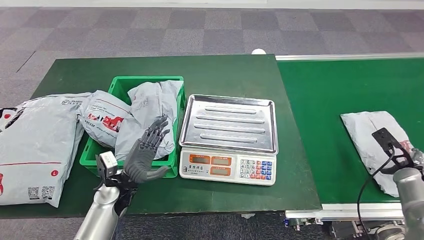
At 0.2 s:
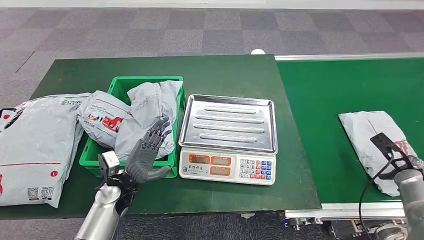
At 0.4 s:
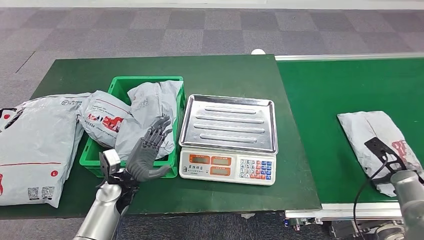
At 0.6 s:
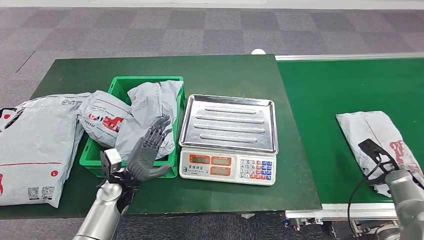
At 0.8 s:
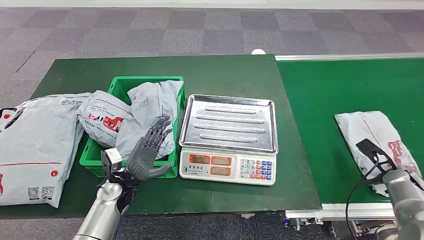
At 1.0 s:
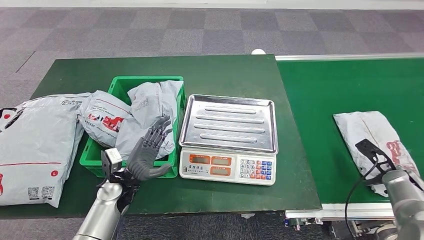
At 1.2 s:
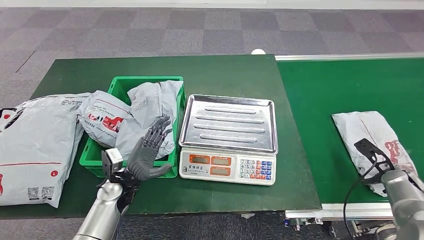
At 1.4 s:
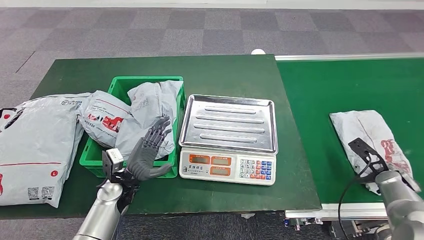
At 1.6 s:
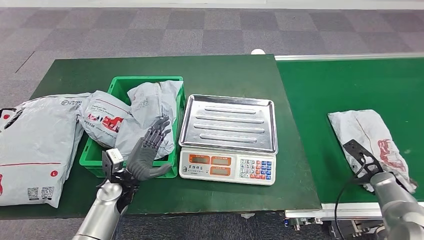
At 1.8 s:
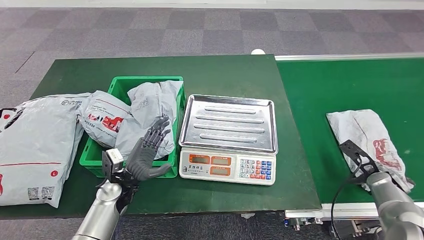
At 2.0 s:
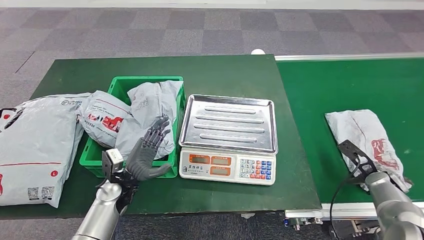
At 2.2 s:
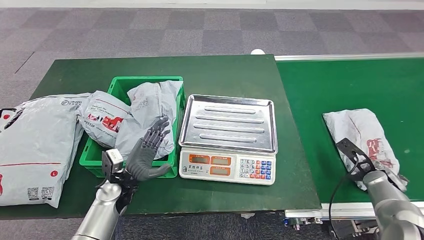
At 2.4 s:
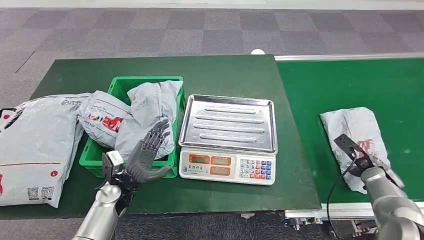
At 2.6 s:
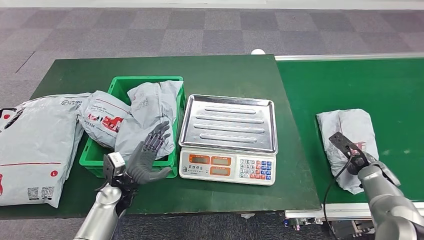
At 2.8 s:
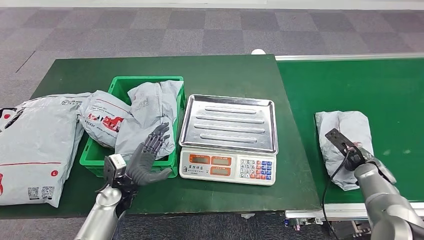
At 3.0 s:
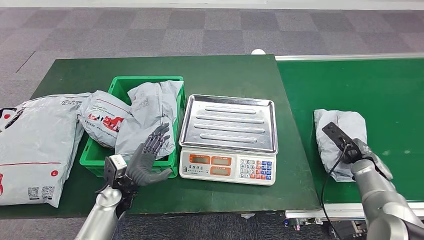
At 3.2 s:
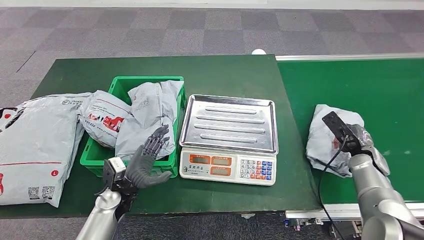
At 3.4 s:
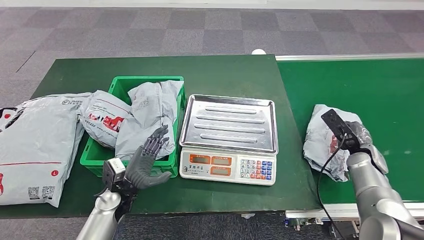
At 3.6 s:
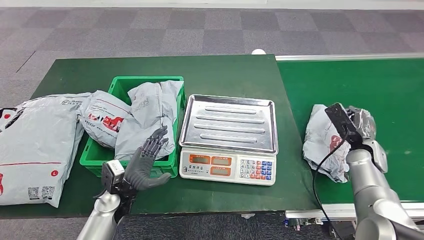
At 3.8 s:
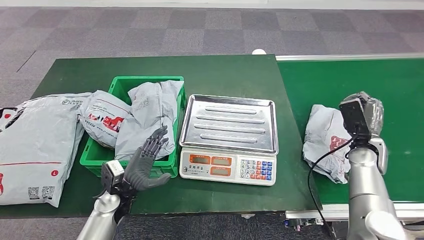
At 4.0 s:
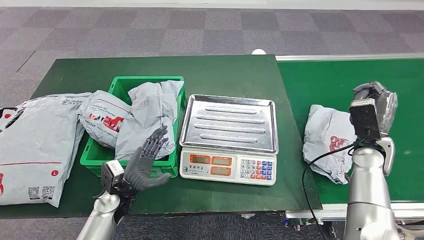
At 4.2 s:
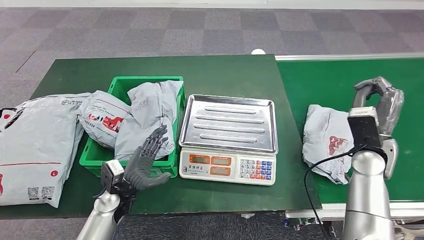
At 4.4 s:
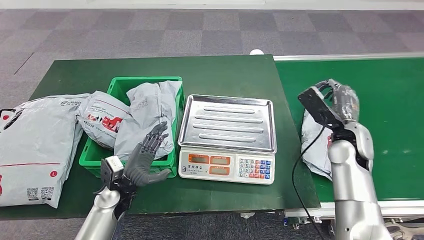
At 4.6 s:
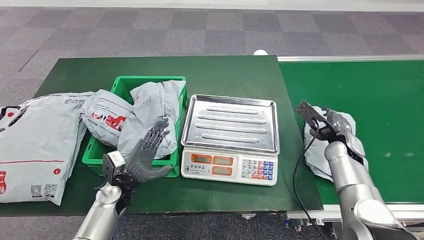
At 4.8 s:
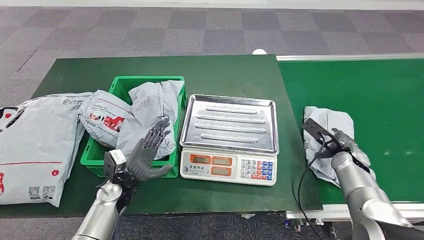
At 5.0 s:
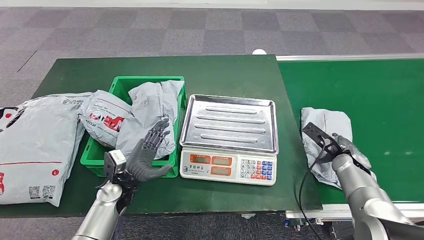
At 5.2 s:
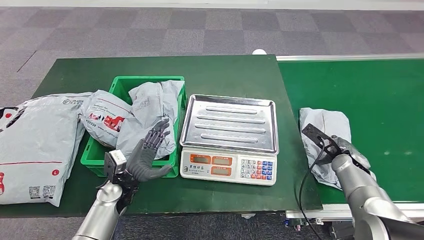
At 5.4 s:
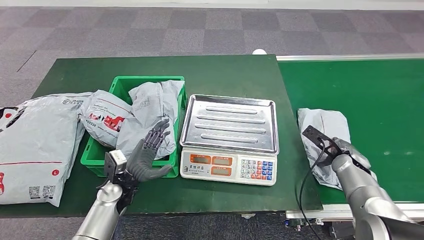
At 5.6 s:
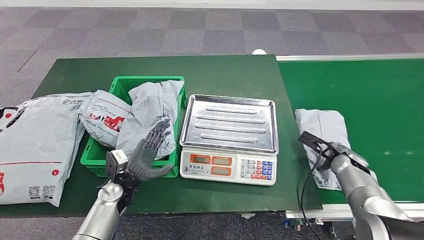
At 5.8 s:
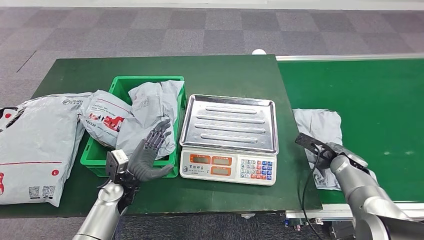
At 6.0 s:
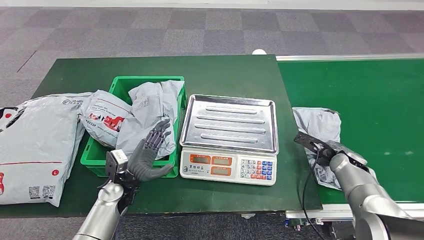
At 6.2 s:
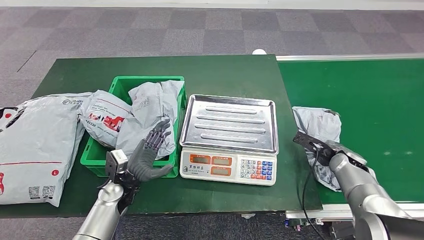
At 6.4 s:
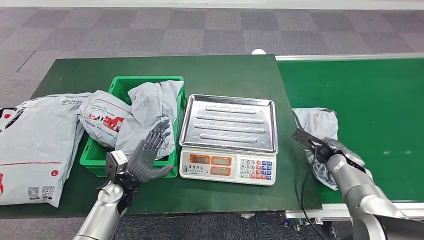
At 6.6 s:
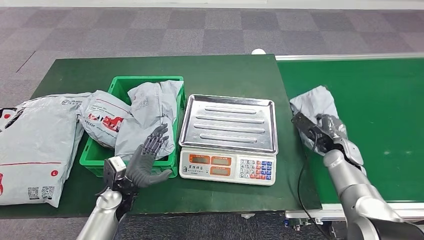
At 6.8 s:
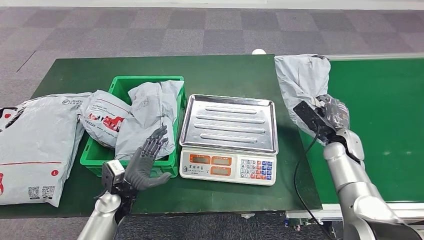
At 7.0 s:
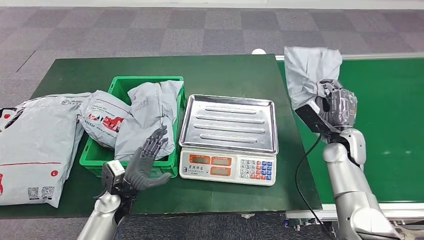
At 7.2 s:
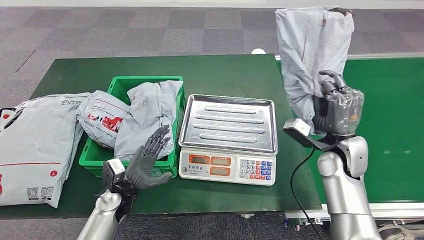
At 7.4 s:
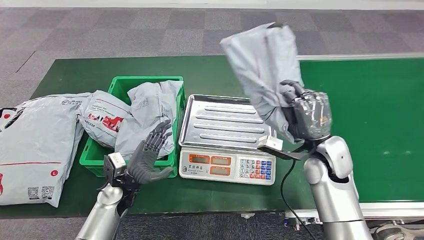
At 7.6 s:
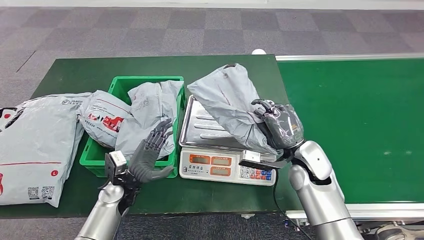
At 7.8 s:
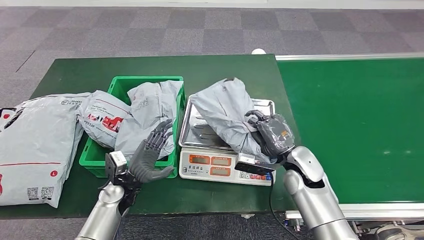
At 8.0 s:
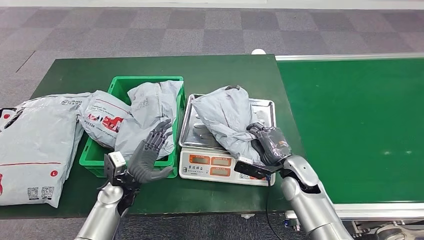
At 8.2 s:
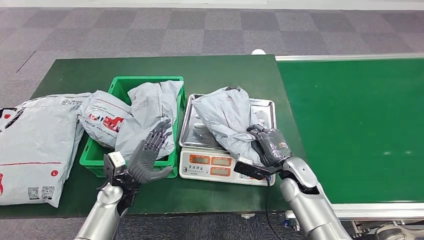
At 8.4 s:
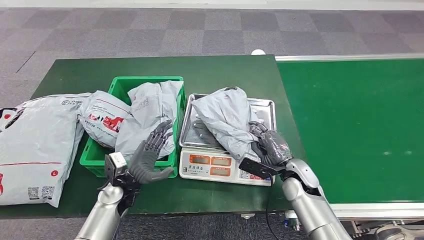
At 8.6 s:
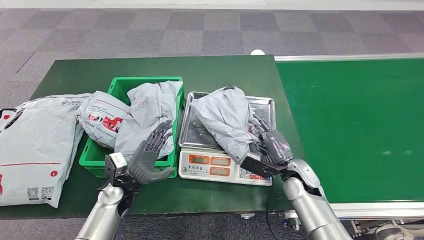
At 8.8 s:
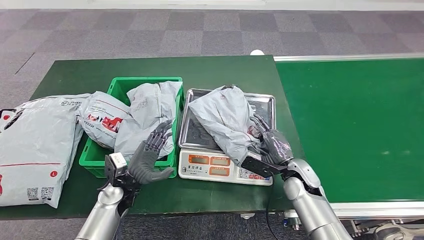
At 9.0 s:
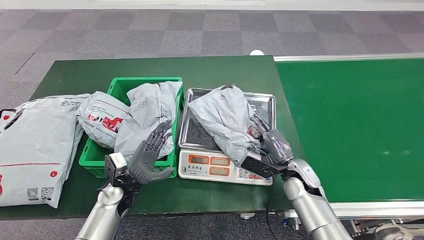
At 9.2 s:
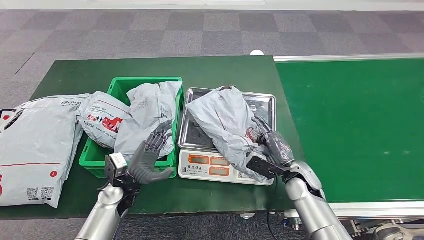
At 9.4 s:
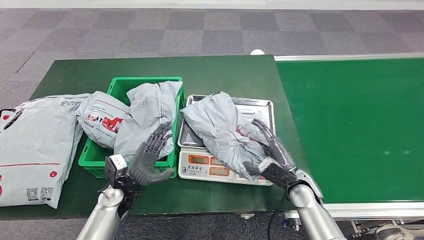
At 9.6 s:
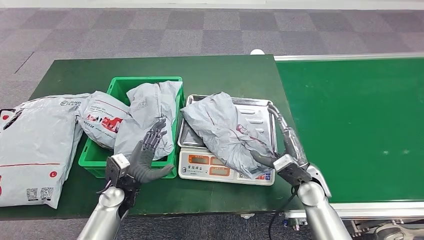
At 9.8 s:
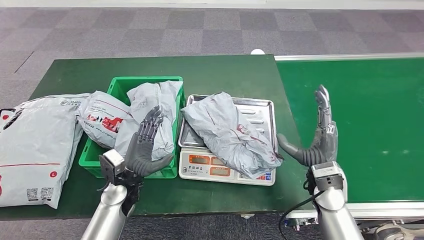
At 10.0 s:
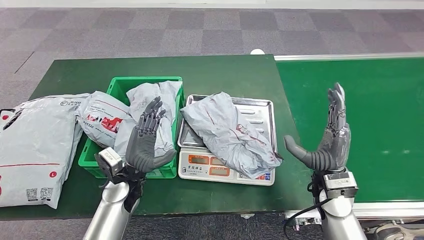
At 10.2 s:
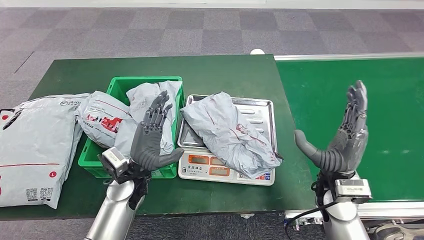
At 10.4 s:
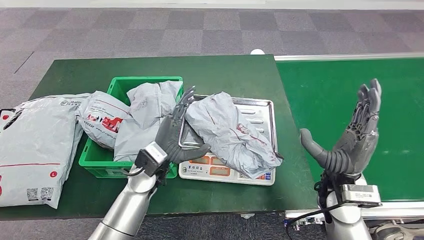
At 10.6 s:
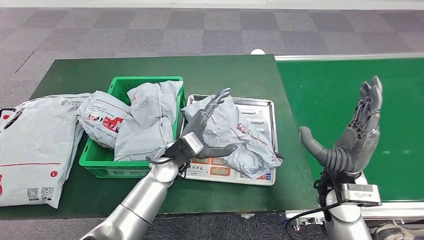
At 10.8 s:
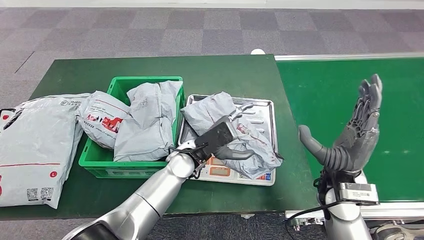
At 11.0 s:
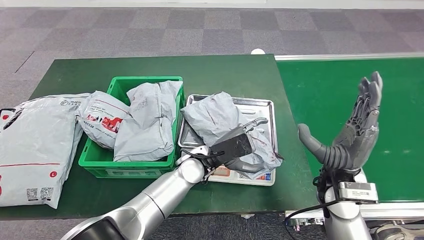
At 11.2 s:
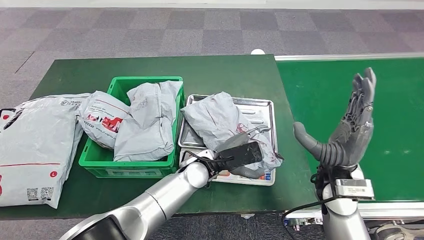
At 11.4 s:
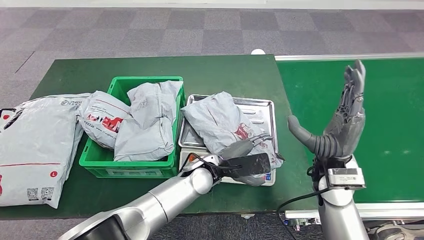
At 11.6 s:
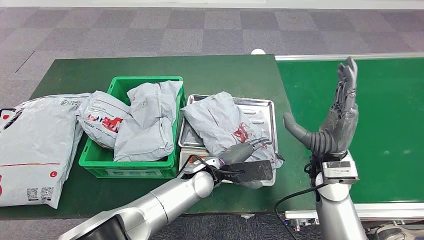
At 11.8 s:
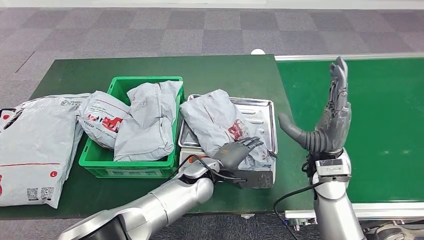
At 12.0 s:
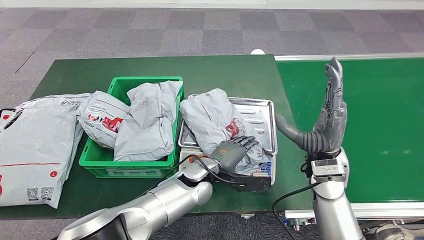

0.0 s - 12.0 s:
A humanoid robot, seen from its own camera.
Step, 5.2 s - 7.0 s: Pick up the parcel from the conveyor belt.
Step, 7.2 s - 8.8 s: Place the parcel onto the inbound machine.
0.0 s - 1.6 s: The right hand ends up roughly 5 cm from where it was.
1.6 s - 3.0 s: The right hand goes approximately 5 cm to the left.
3.0 s - 4.4 s: The right hand travels upward and to the left by about 15 cm.
4.4 s - 6.0 s: The right hand shifts about 15 cm downward and to the right.
6.0 s - 7.6 s: The right hand travels to the left and upward by approximately 15 cm.
7.6 s - 9.0 s: The right hand heads downward, covering about 10 cm.
9.0 s - 10.4 s: The right hand travels upward and backward by approximately 15 cm; the left hand shifts approximately 15 cm to the right and upward.
10.4 s - 12.0 s: The right hand ends up some 5 cm from where it was. Meanwhile the left hand heads to the right, covering some 10 cm.

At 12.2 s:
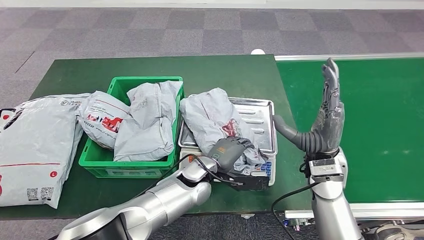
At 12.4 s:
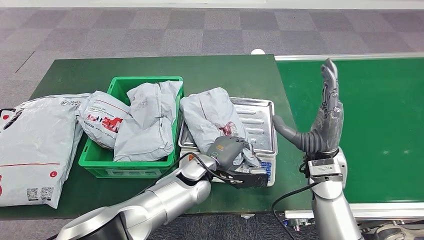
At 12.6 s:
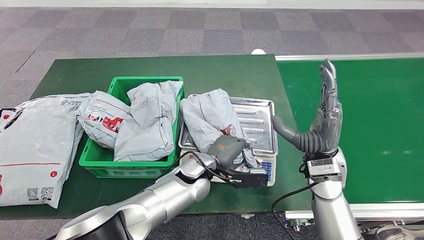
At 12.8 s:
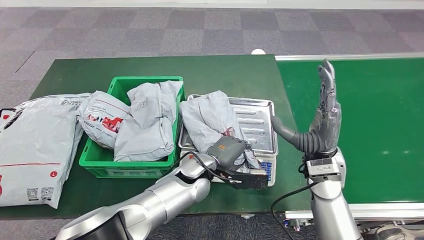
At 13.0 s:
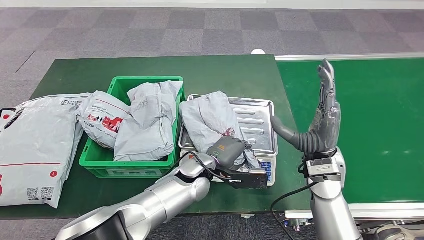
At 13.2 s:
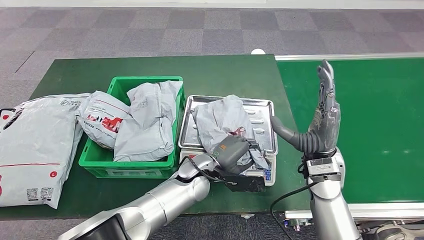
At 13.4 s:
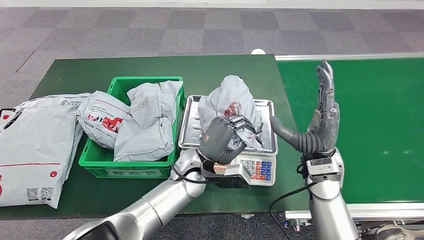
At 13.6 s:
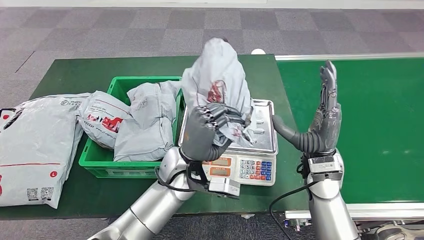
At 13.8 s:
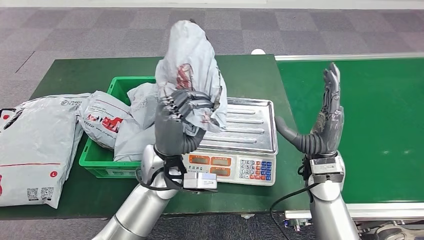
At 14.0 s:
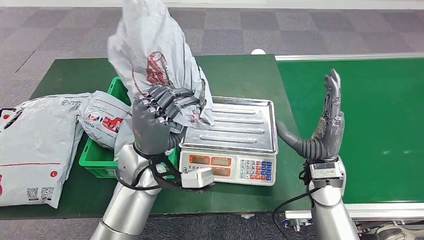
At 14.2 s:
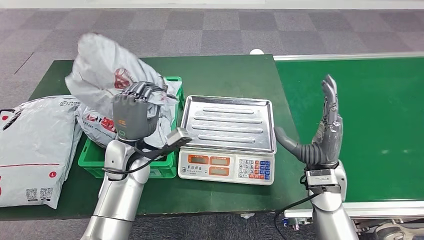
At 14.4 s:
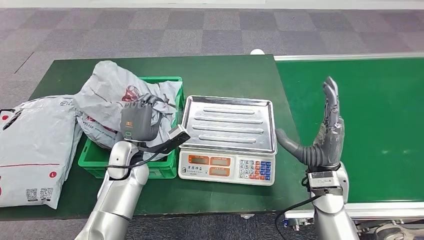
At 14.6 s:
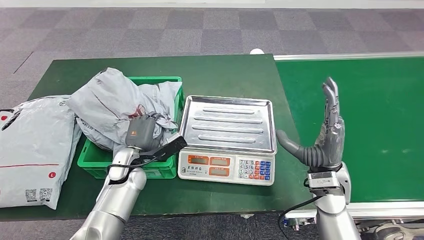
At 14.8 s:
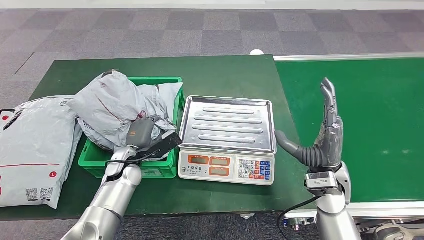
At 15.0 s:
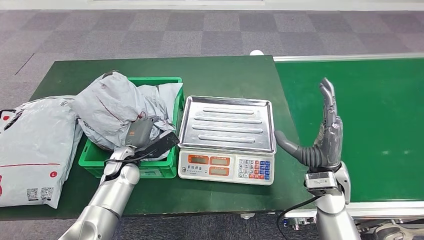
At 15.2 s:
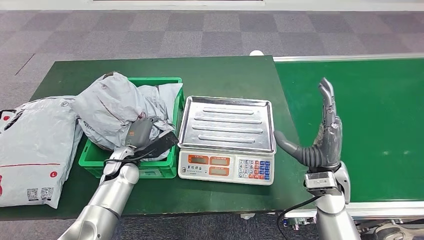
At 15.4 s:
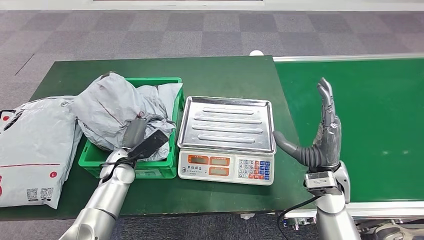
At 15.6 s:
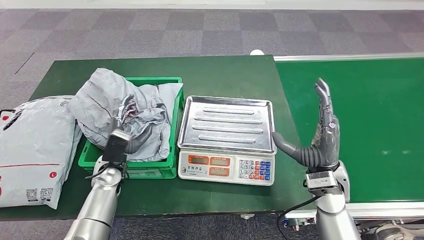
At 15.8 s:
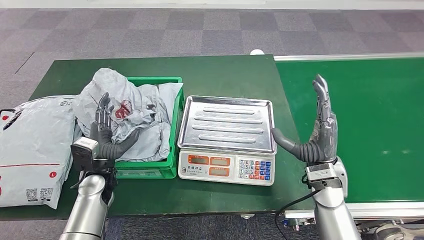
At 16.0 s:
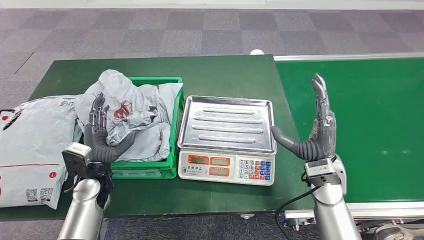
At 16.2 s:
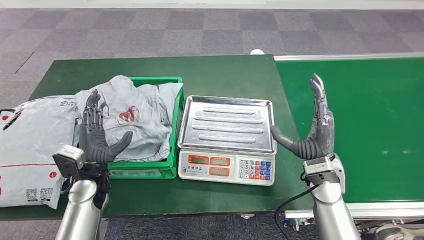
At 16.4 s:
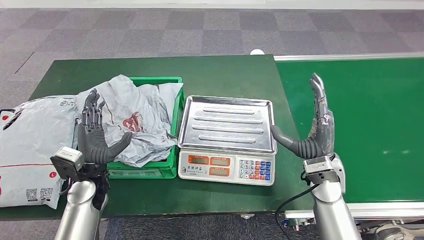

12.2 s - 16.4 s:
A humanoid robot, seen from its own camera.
Step, 12.2 s - 14.0 s: Pick up the parcel from the inbound machine.
Step, 14.2 s - 16.4 s: Place the parcel into the delivery box.
12.2 s - 13.6 s: The left hand shifts approximately 5 cm upward.
15.0 s - 16.4 s: The left hand moves backward, about 5 cm.
